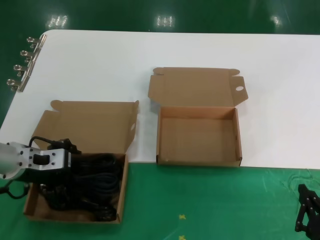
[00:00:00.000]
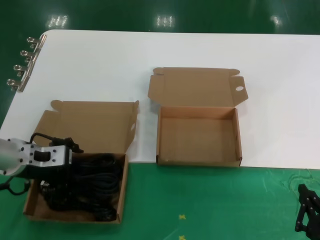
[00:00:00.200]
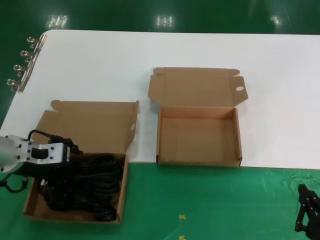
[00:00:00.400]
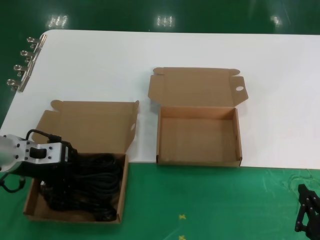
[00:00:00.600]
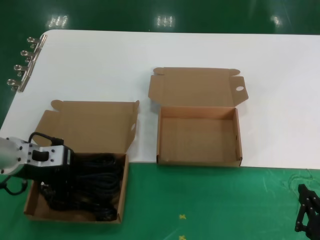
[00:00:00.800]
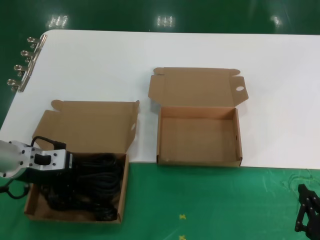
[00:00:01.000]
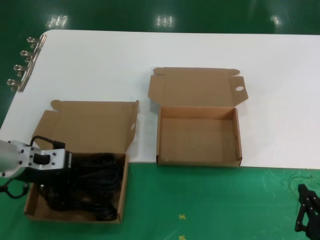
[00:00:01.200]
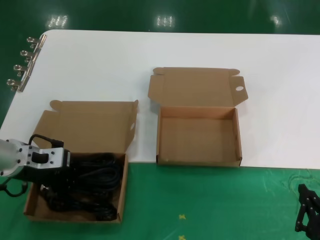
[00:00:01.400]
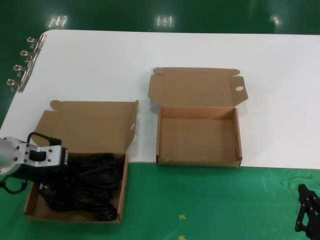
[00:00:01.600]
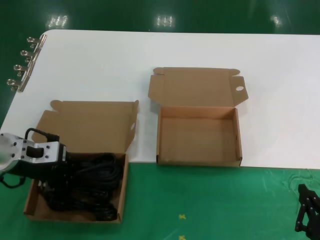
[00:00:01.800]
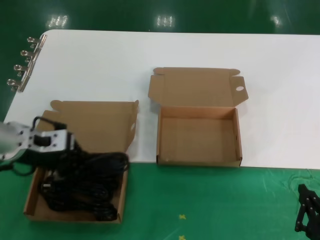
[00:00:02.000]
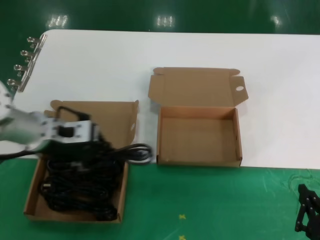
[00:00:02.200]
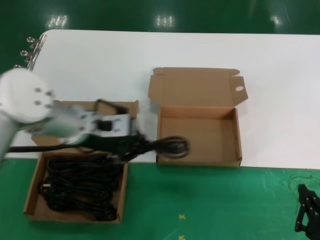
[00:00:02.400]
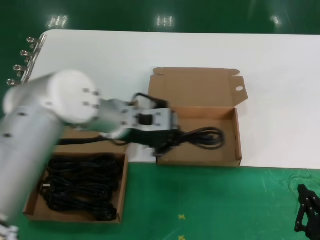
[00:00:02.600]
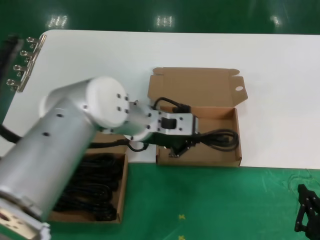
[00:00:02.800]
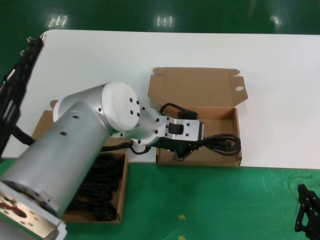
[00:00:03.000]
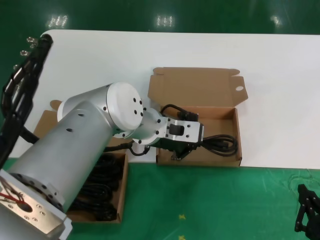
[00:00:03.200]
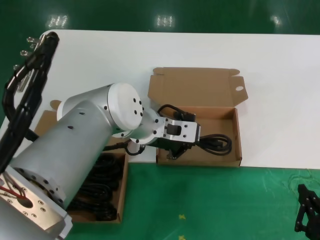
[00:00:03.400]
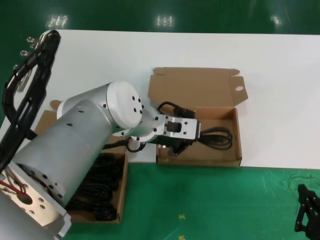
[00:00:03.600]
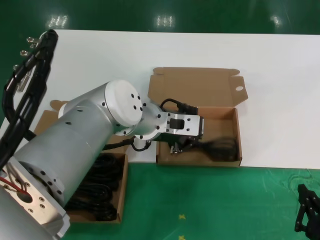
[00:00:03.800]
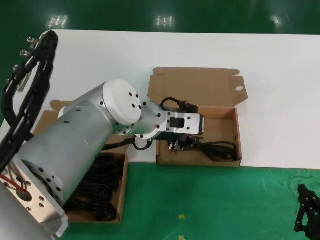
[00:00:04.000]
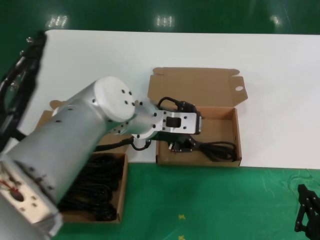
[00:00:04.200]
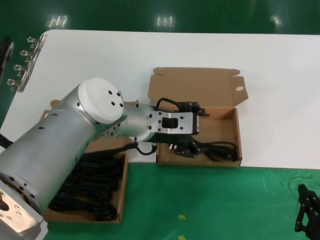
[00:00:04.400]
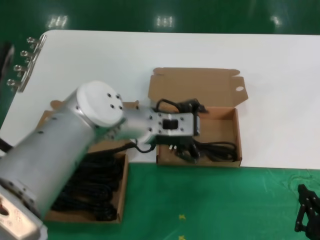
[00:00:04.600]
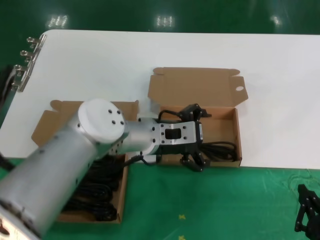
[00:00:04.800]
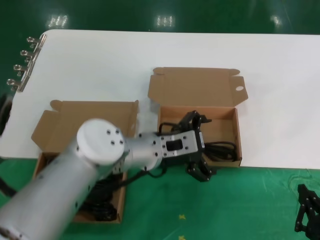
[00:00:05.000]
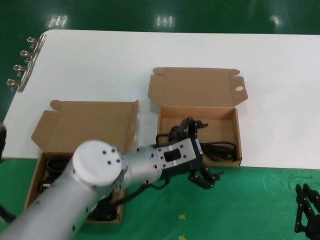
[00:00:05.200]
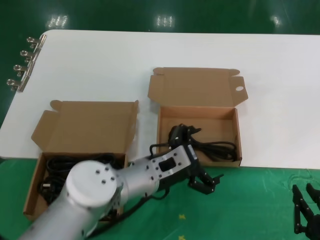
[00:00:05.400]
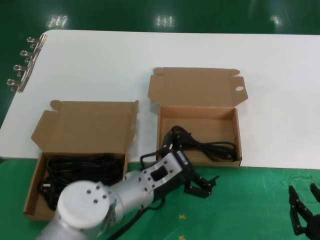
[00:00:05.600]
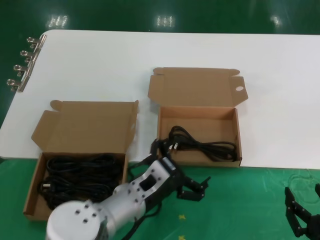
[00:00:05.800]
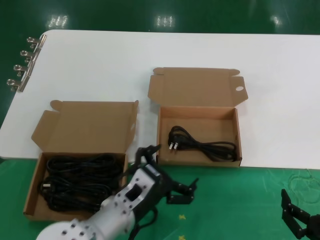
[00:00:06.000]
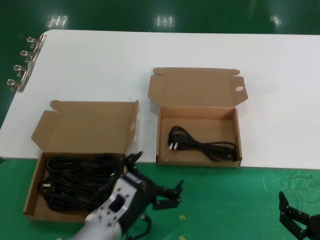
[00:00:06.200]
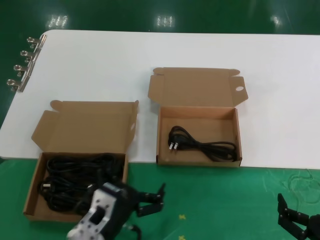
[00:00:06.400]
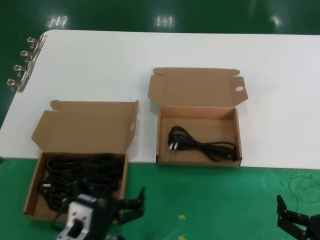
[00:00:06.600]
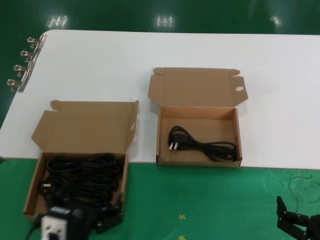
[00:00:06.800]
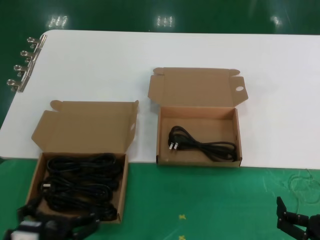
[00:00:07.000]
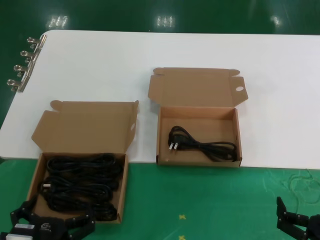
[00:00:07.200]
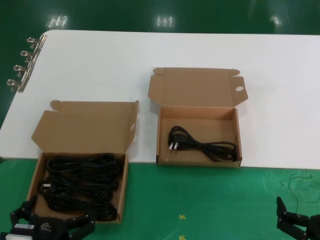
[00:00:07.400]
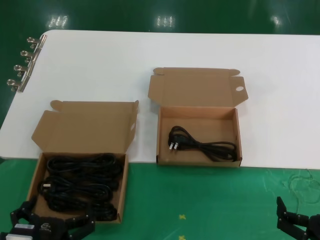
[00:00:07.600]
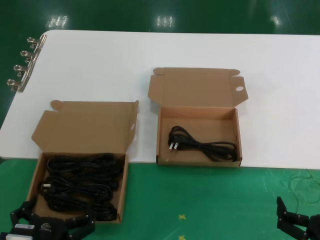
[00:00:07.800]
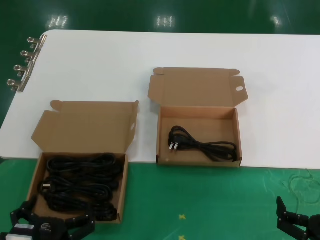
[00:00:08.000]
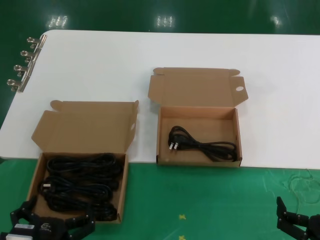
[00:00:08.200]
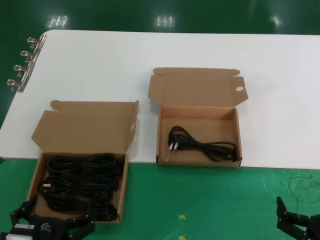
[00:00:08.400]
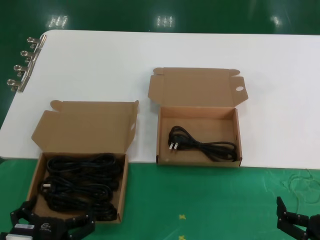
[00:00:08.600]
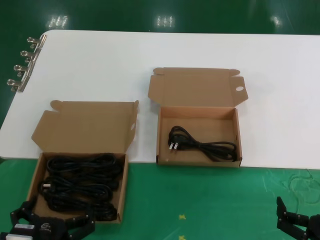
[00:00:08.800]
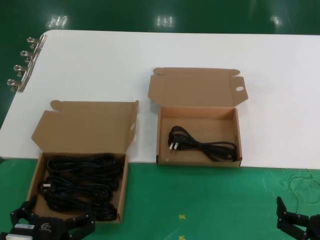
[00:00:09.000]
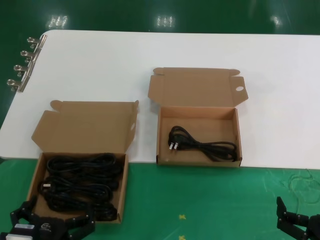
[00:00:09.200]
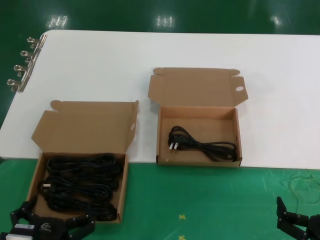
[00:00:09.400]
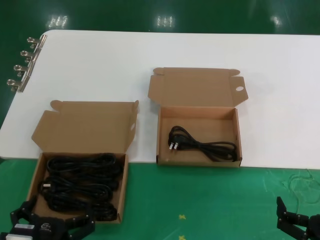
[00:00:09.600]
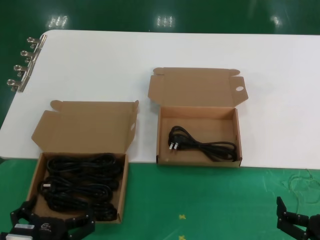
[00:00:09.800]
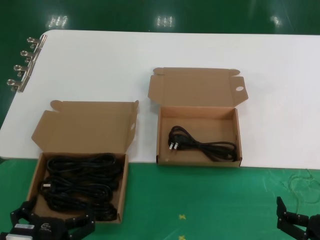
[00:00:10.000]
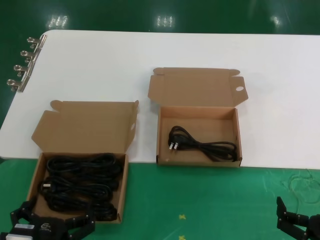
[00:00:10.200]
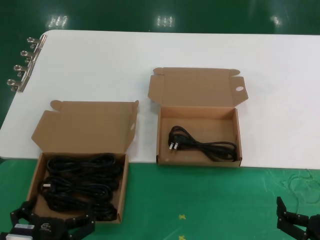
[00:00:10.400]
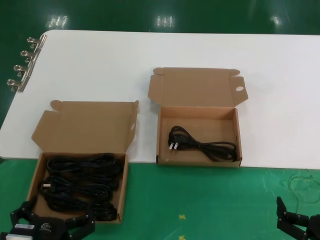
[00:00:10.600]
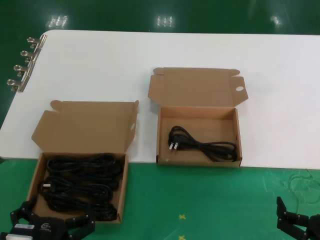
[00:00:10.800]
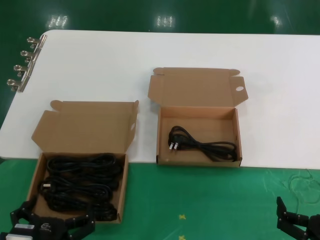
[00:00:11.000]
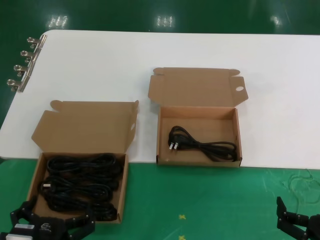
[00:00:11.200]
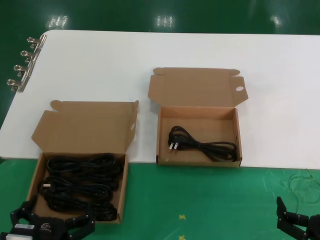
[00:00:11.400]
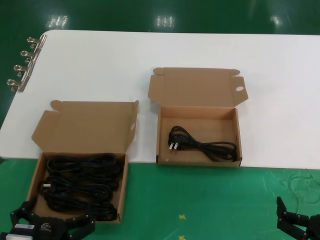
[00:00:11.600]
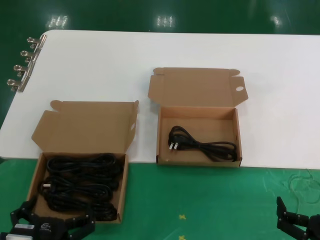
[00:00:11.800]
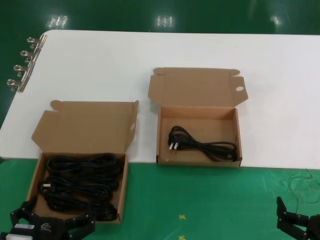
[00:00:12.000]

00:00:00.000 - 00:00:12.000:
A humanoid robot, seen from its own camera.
Task of the whole recording: take the parts from the box containing them and put them into an empty box.
Step, 00:00:01.600 - 00:00:04.600: Place the data cable in the another box.
00:00:00.000 - 00:00:01.600: The hands move only a little.
00:00:01.600 - 00:00:03.000: The left hand shifts roughly 25 cm to the right.
00:00:03.000 - 00:00:04.400: The hands move only a little.
00:00:04.400 - 00:00:06.000: The left hand moves downward and backward, approximately 20 cm.
00:00:06.000 - 00:00:07.600: The left hand goes roughly 20 cm backward, to the left and downward.
00:00:07.600 - 00:00:12.000: Both hands stay about where they are.

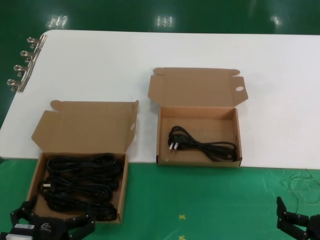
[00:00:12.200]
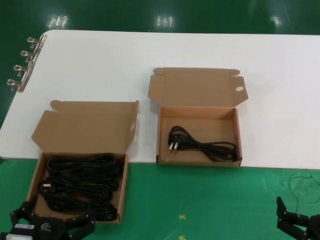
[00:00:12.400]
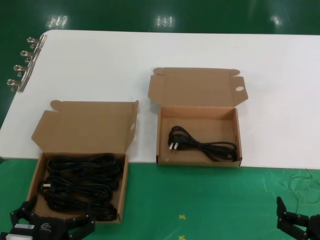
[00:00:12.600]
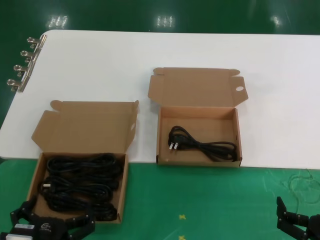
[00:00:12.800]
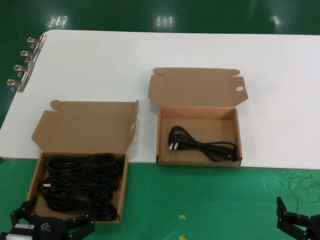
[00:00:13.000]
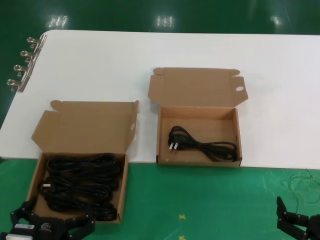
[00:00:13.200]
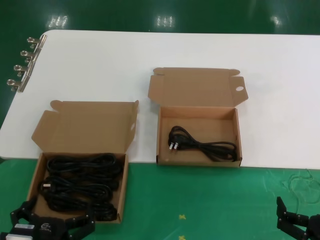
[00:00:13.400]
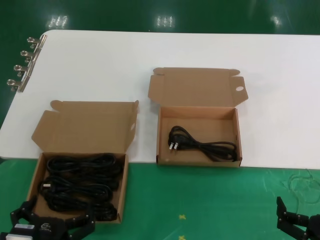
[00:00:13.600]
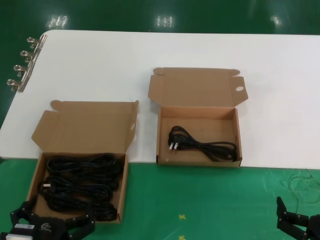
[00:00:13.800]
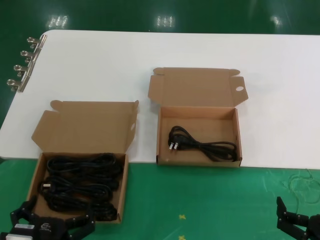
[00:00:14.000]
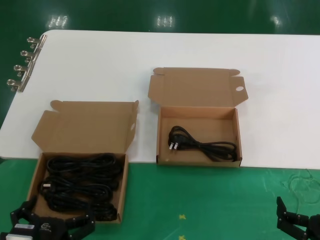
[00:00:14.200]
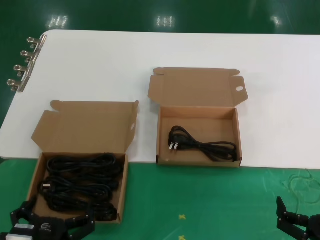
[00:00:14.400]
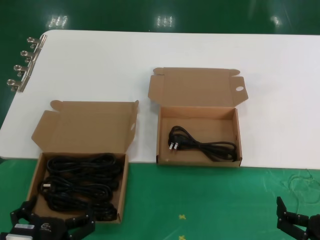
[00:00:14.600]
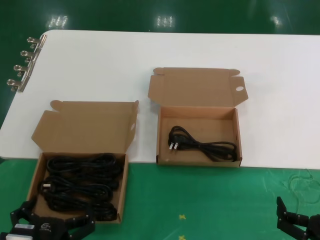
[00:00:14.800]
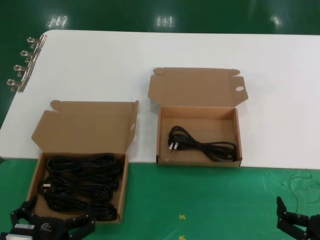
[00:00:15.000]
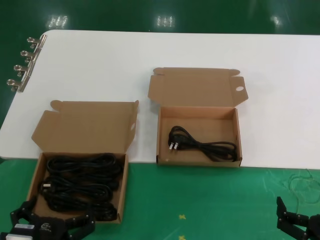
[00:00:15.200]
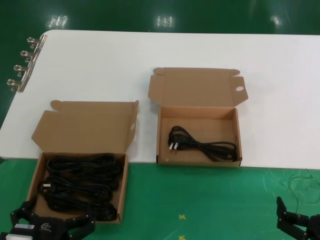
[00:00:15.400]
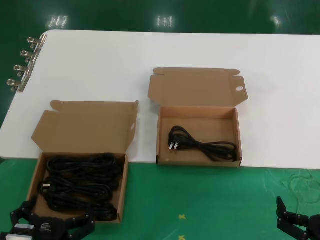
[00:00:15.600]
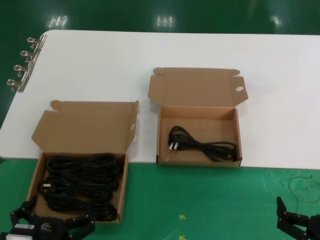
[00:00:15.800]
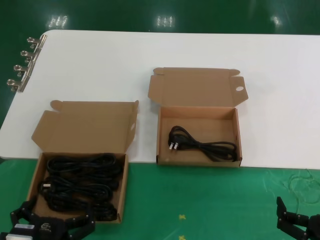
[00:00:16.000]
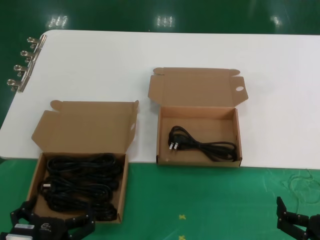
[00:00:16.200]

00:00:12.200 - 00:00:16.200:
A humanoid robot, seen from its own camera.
Task of the whole recording: take the parts from the box containing them and put them into an empty box.
00:00:12.200 - 00:00:16.200: Both hands stay put.
